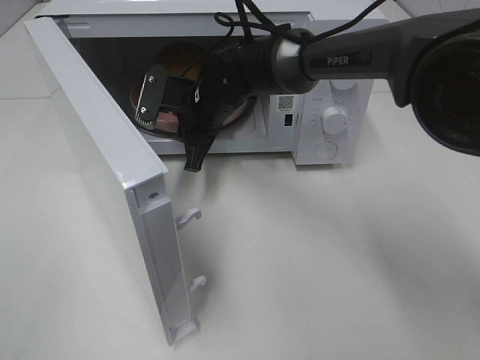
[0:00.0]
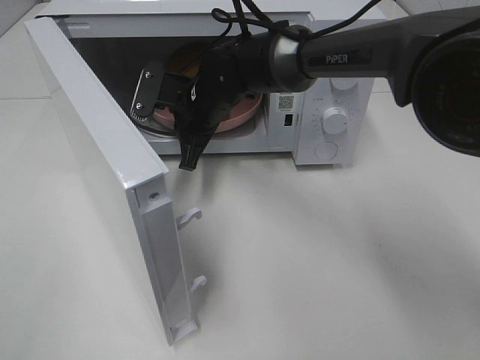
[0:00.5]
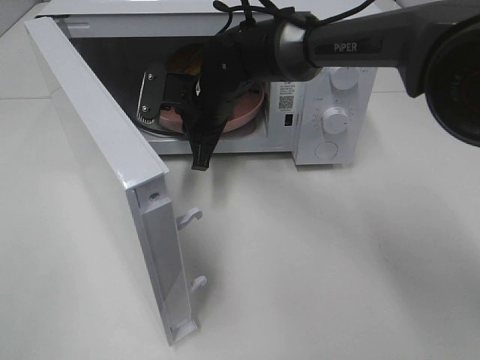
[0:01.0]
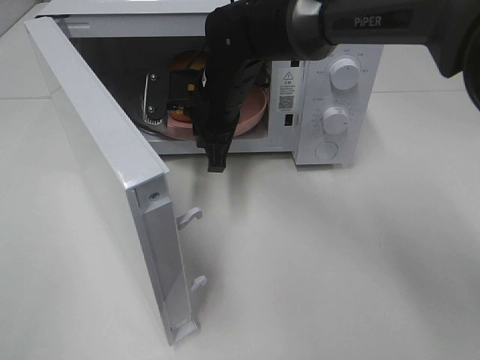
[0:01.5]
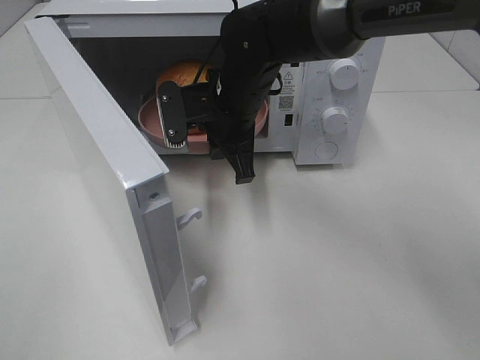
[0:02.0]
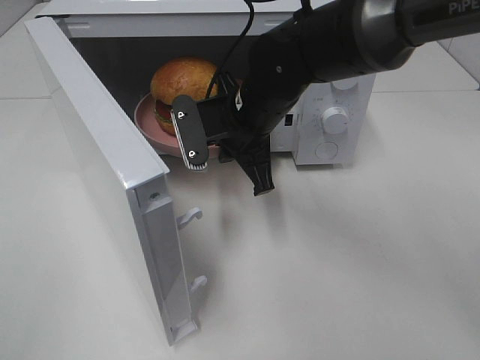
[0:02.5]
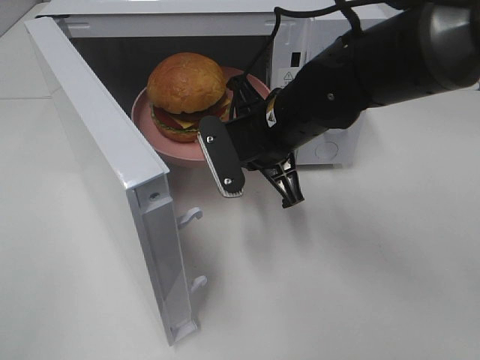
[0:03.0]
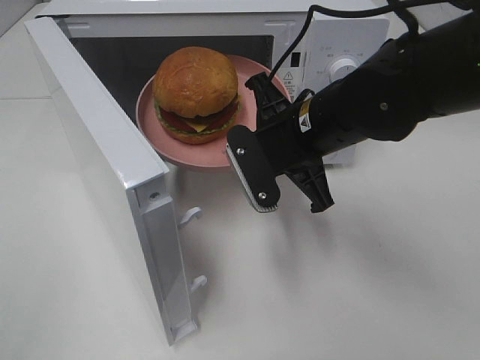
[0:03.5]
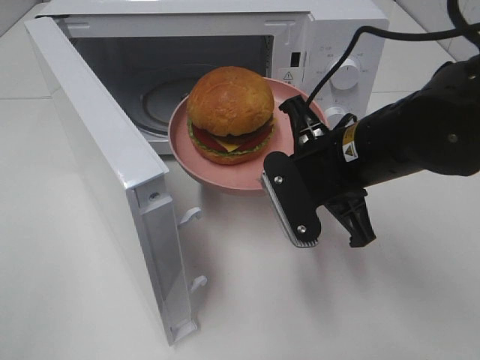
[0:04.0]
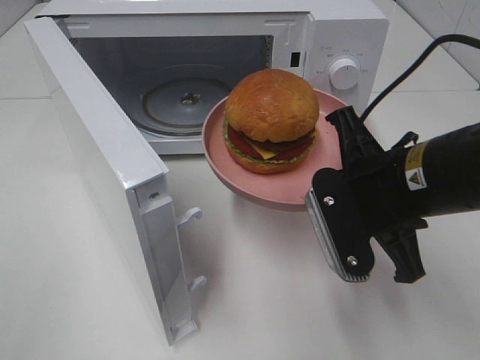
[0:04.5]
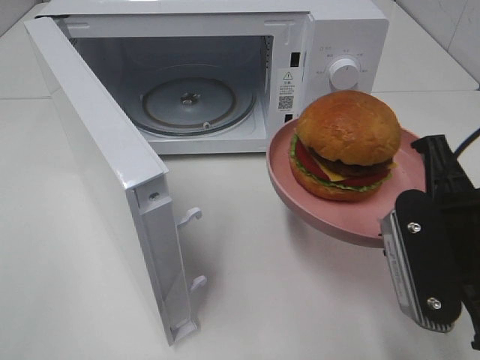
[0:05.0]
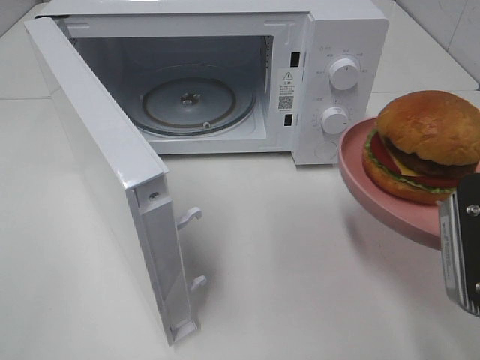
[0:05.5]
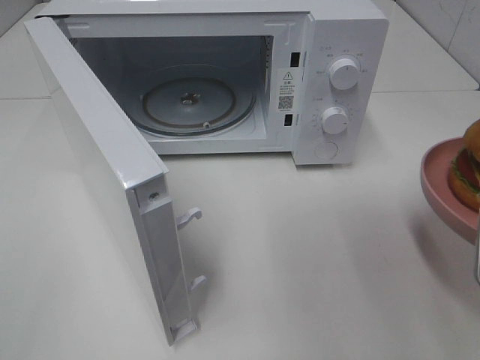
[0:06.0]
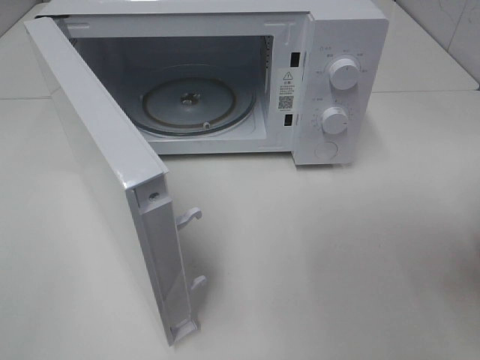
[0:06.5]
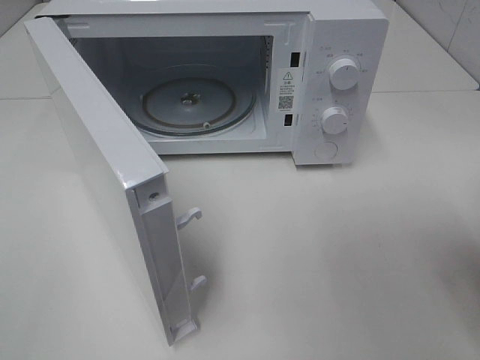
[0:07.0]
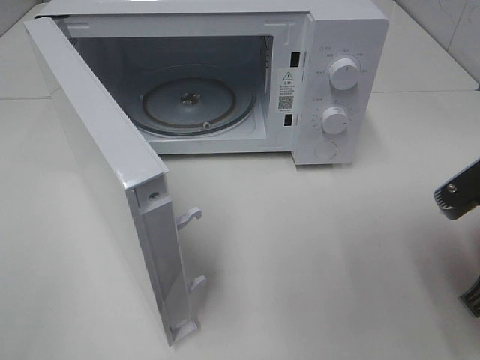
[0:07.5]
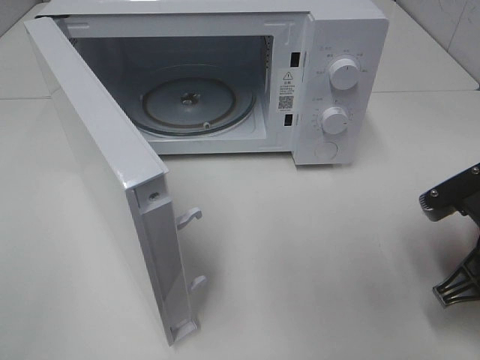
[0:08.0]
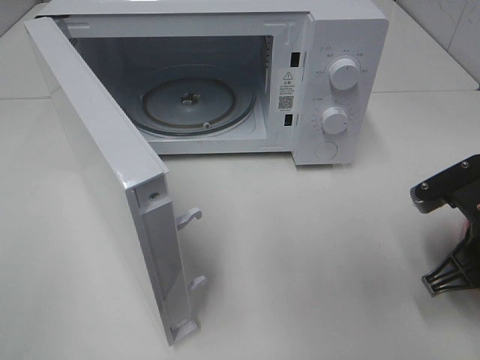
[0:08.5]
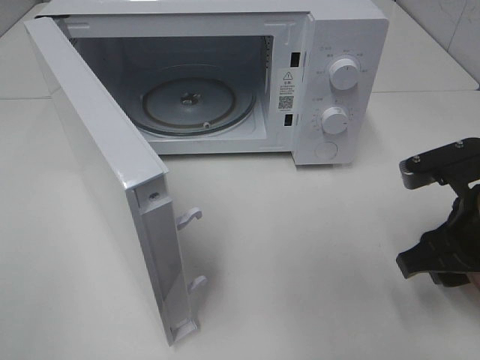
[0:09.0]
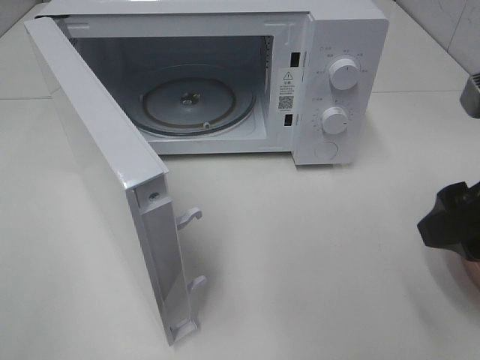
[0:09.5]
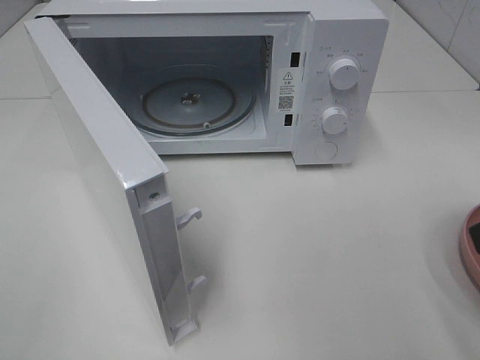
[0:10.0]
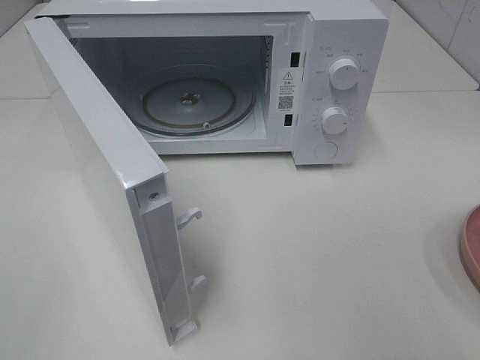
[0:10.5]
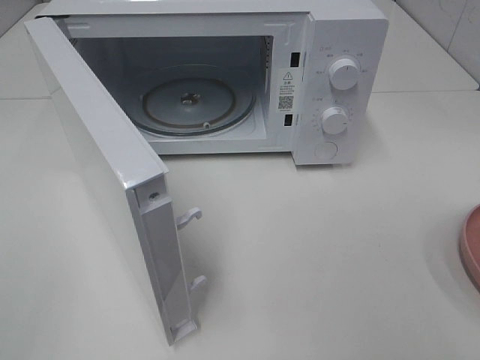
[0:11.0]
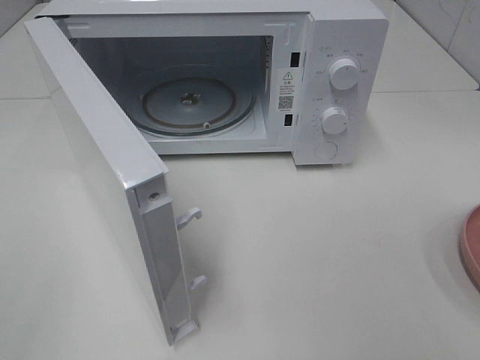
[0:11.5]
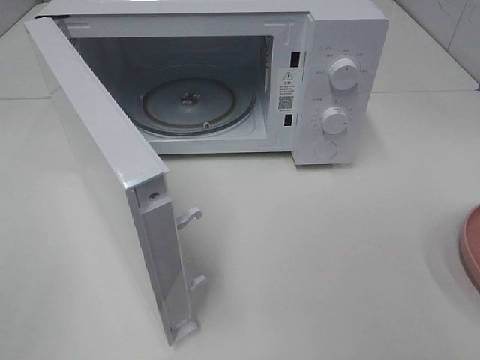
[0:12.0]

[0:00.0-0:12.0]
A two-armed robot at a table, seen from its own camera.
Task of the whole recording: Heat the burger.
Step, 0.5 to 8.5 s: Right hand: place the plate on the table.
0.0 to 2.0 s: The right gripper ends up approximately 5 cm from where it was.
2.0 to 4.0 s: The right gripper shifts some 15 cm backward and to the right.
4.0 to 6.0 s: The right gripper moves to the right and backward, some 20 cm.
6.0 to 8.0 s: The right gripper moves downward and forward, some 10 cm.
8.0 to 10.0 s: The right gripper goes roughly 15 cm upward and backward, and opens.

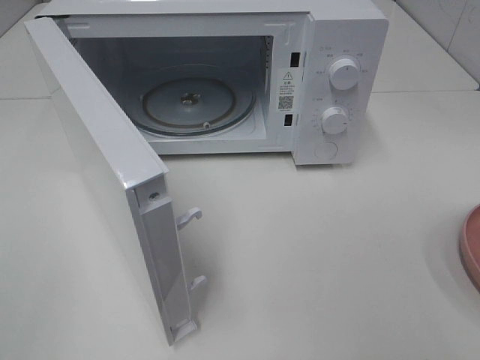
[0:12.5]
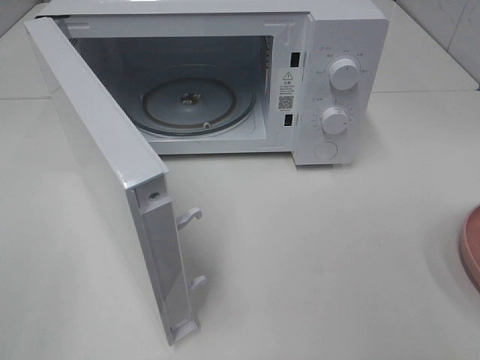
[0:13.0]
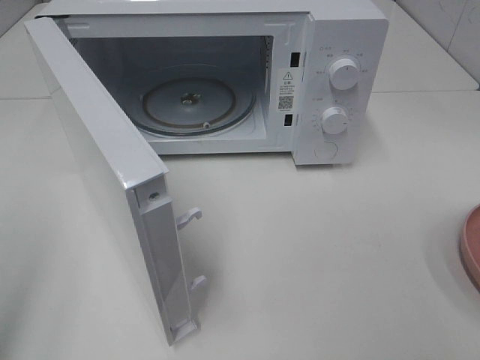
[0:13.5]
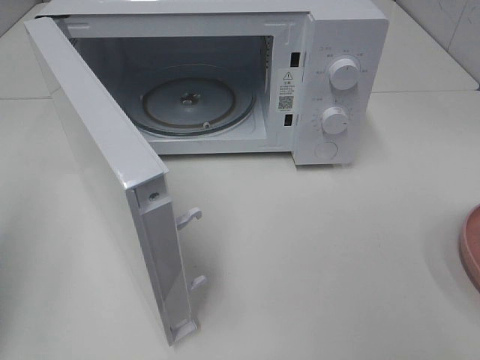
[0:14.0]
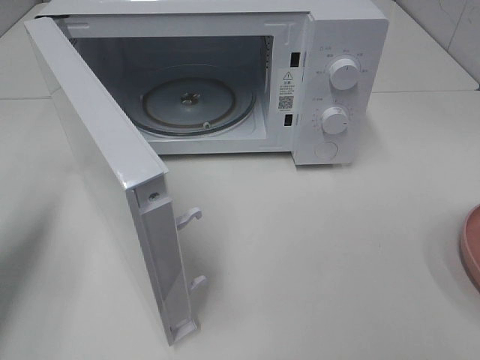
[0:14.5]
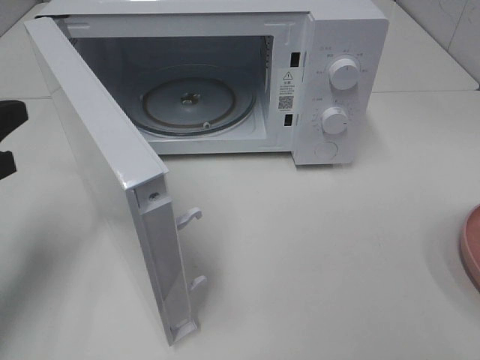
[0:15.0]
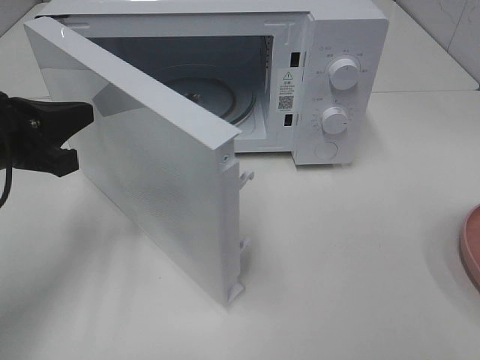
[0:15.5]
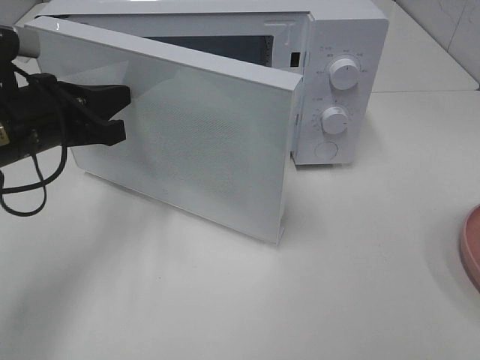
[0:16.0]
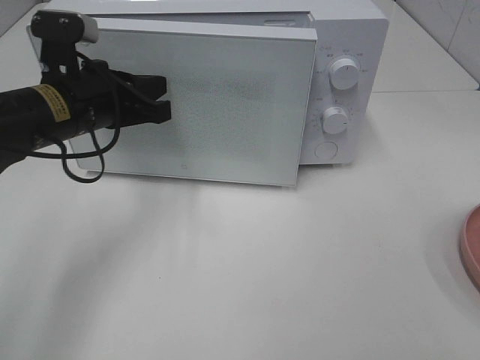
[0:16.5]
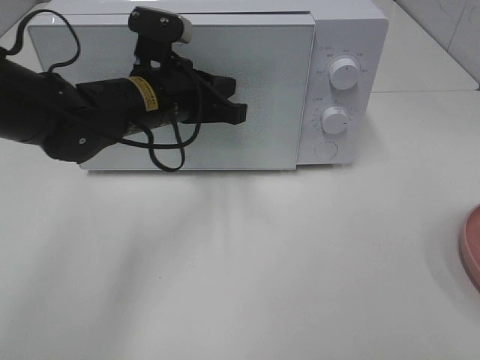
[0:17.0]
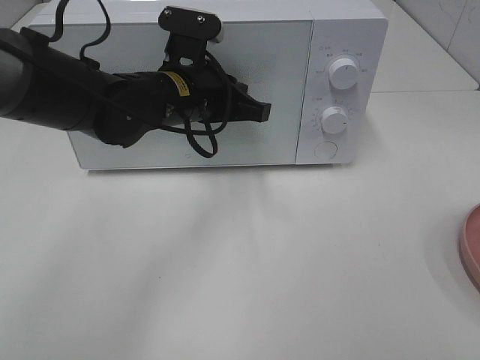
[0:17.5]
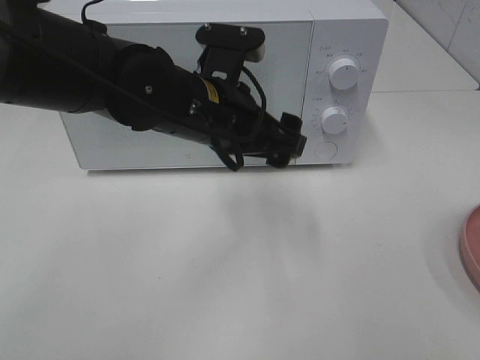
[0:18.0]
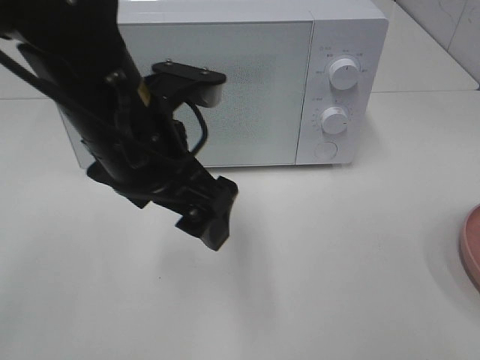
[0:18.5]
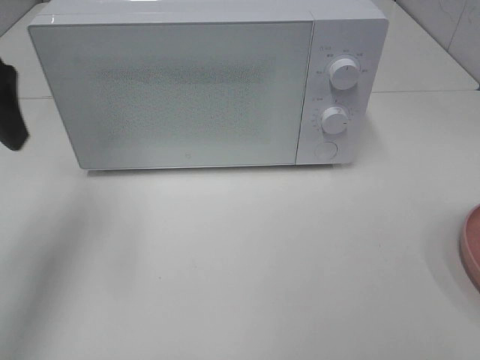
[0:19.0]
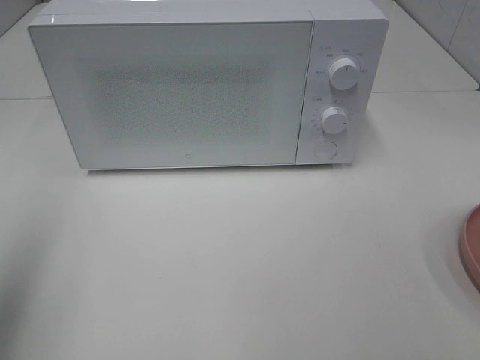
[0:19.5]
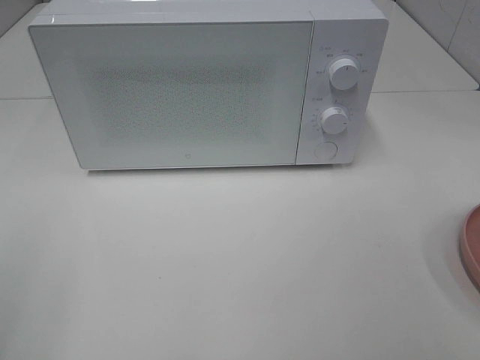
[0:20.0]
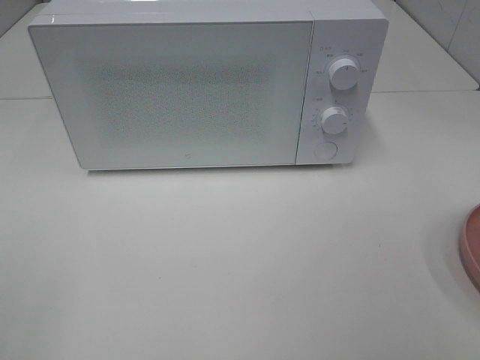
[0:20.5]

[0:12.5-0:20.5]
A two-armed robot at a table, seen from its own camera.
Task of the whole recording: Heat the burger.
Step, 12.5 to 17.0 s: Left hand: close the microwave door.
12.5 to 14.5 s: The left gripper shifts some 20 cm forward, and closes up.
14.5 to 16.5 s: The left gripper shifts roughly 20 cm to the right and forward.
16.5 to 18.5 s: The left gripper goes roughly 15 cm backward, to the right and upward, and opens up.
18.5 to 20.5 s: The left gripper is displaced to the left and backward by about 35 cm.

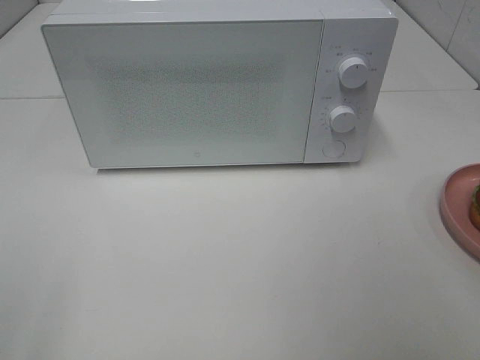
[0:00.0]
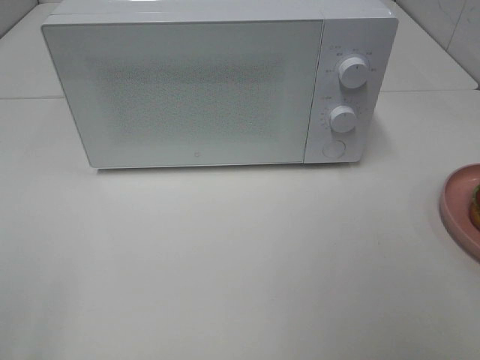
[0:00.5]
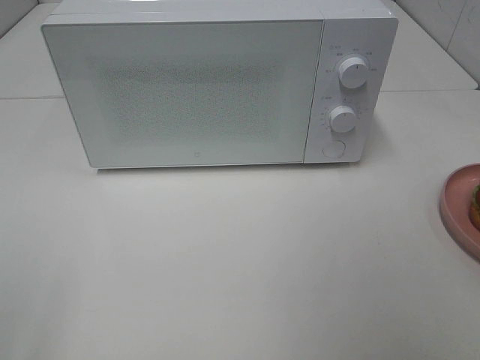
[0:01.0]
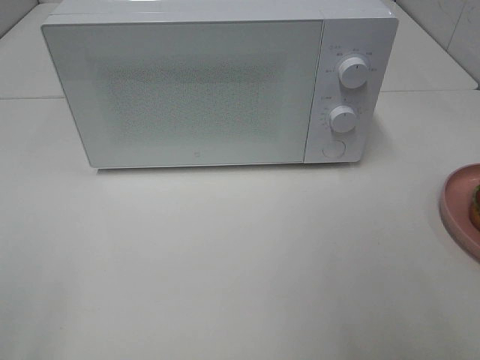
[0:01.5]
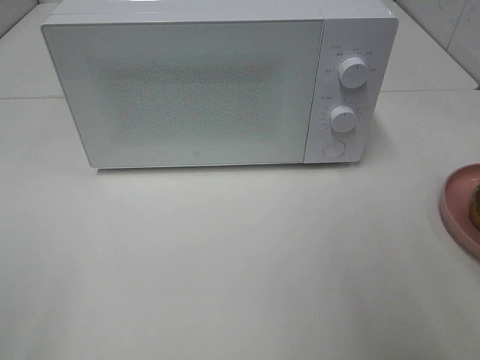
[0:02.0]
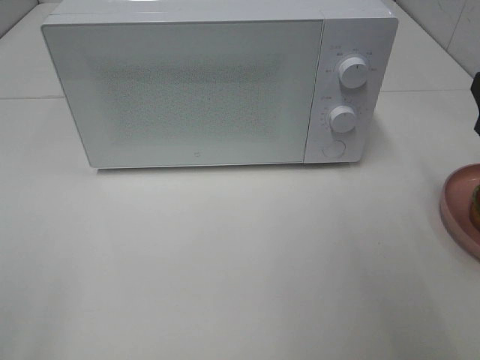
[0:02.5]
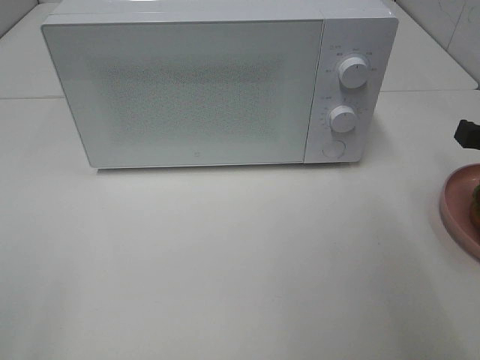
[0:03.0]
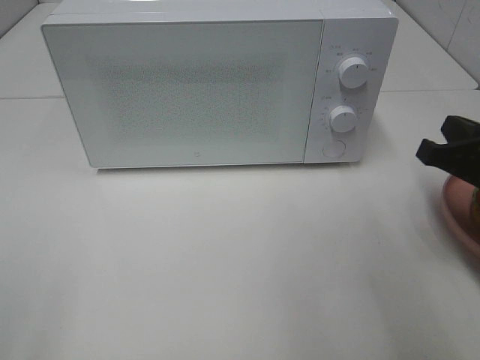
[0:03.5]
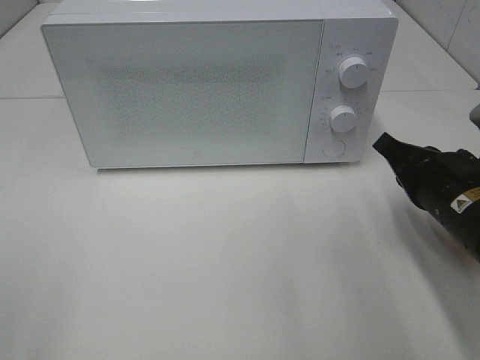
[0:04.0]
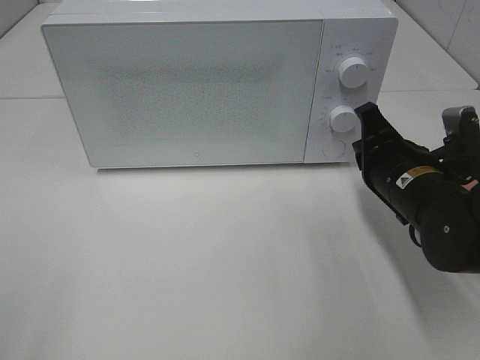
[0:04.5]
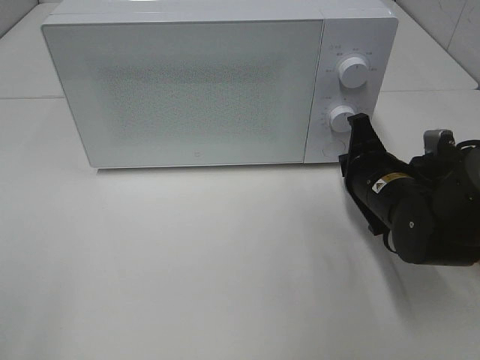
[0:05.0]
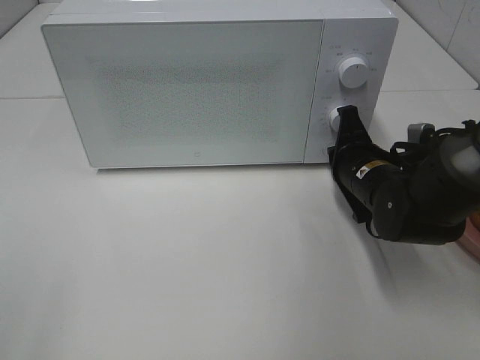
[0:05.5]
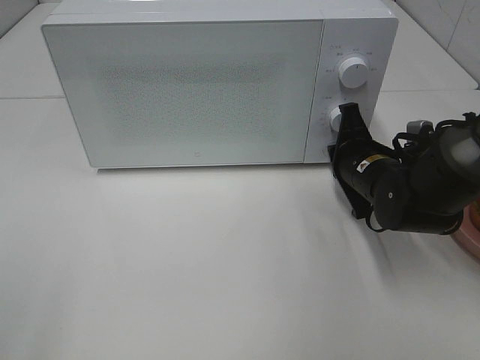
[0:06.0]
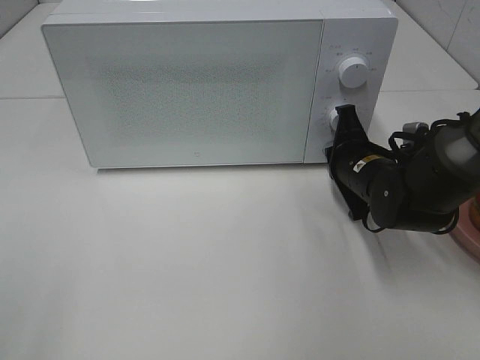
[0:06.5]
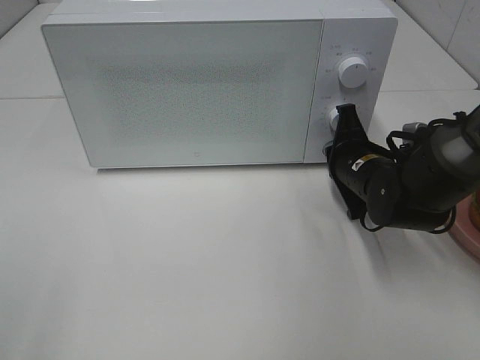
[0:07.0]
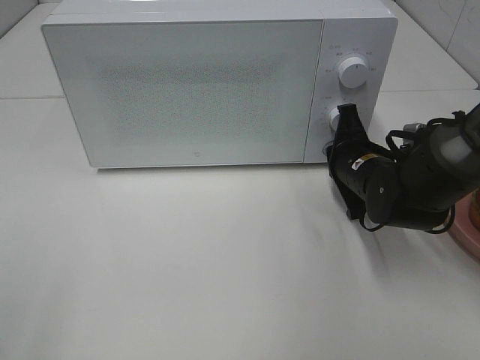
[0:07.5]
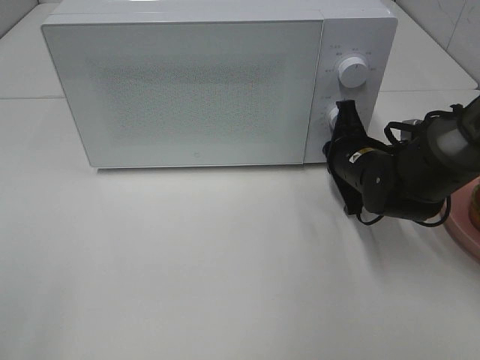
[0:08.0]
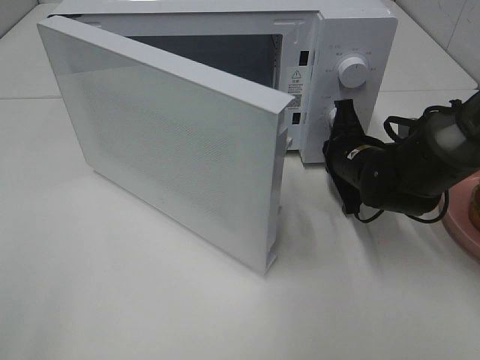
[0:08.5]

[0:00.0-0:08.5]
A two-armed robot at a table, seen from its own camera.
Task of the whole recording: Heat the burger.
2.0 to 4.0 s: The right gripper heads downward, forward and to the left, covering about 15 cm, and closes up.
4.0 to 6.5 s: The right gripper is displaced forward and downward by approximately 10 cm.
6.5 to 8.5 s: There are only small adjustments of the grippers.
